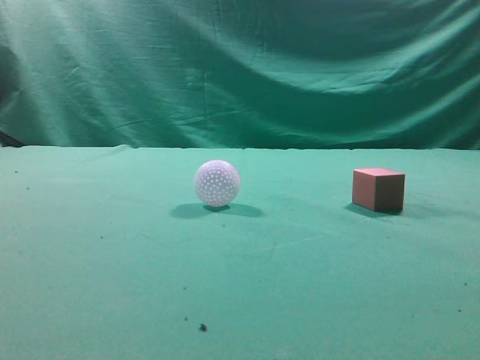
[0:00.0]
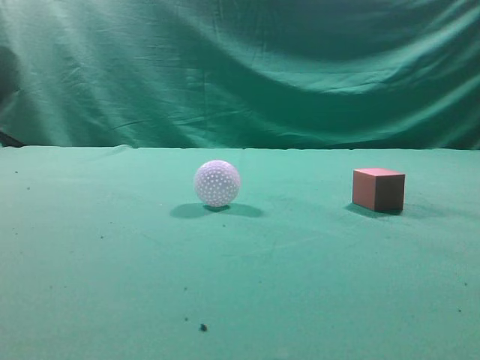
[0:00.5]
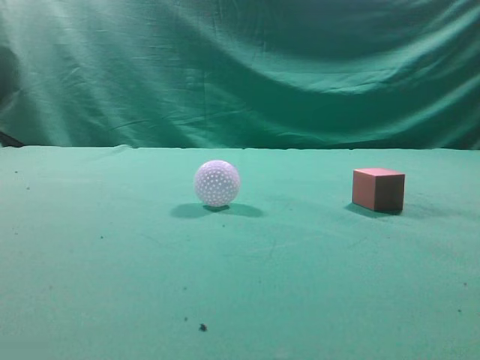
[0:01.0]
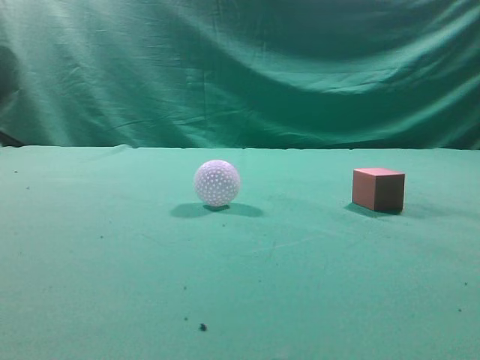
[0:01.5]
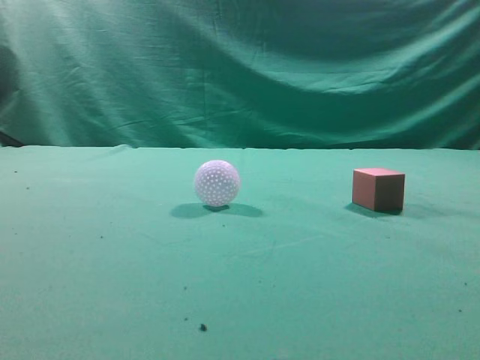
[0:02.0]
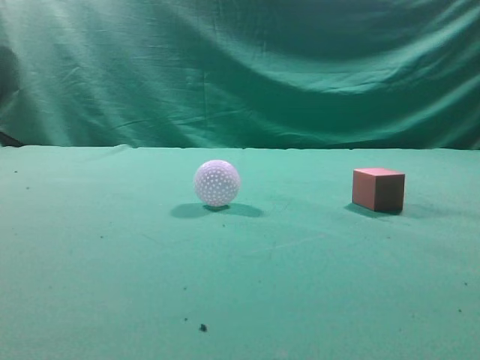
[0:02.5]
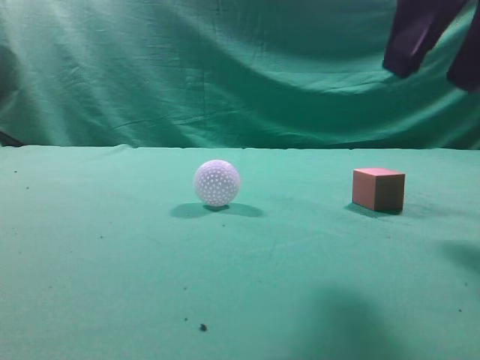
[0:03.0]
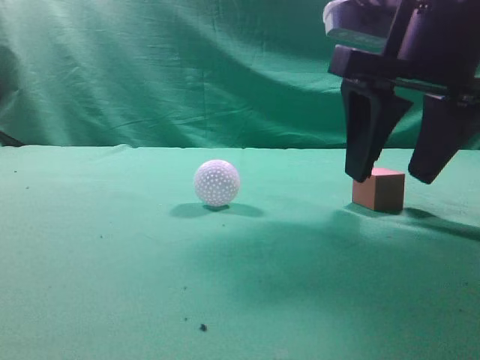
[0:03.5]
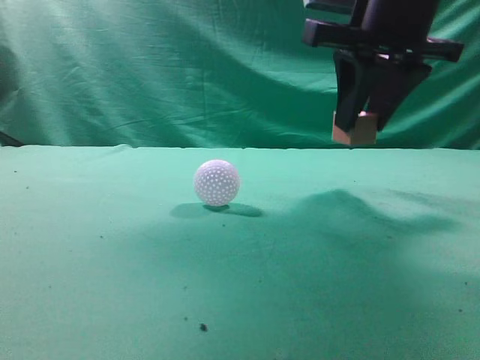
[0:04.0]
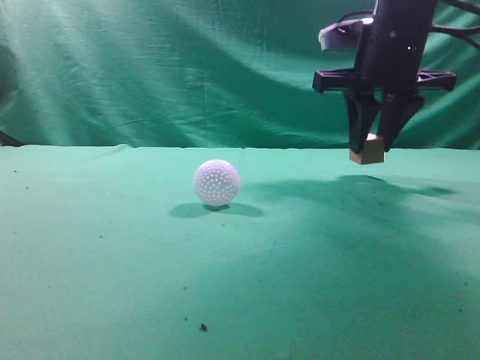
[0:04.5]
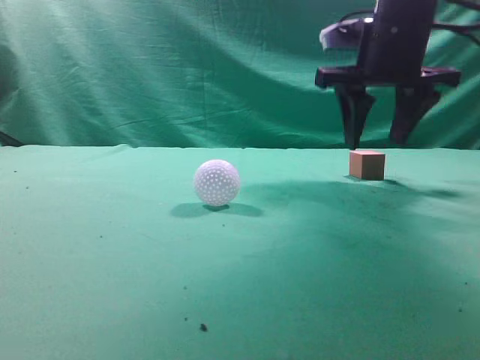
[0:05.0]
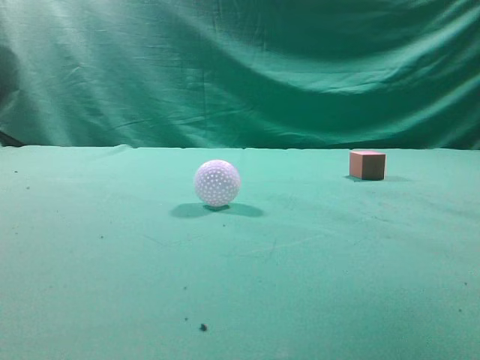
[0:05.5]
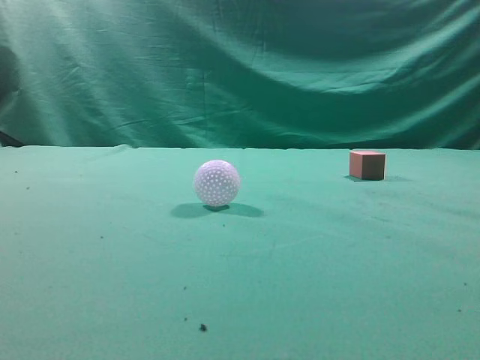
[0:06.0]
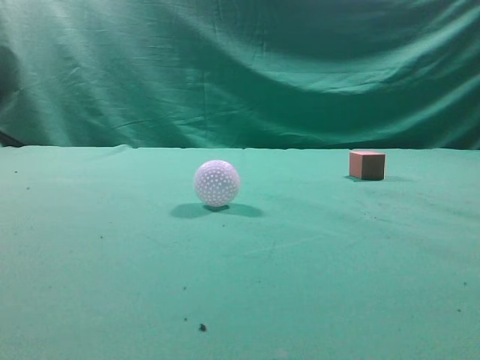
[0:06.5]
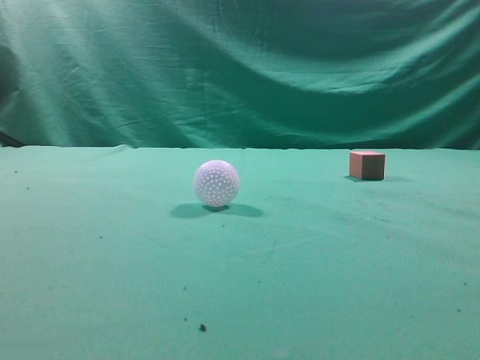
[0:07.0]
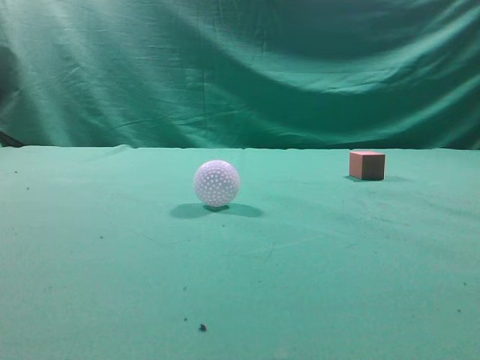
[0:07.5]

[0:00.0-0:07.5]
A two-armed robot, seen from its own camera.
Task of the whole recording: pick up the cube block and place it in another position on the table.
Step, 0:00.0 to 0:03.5: Pick up the small cube.
Step, 0:04.0 to 0:04.5: Place the small cube on the ahead of the table.
0:02.0 to 0:04.0: The right gripper shifts roughly 30 cm forward and to the left, and opens its fingers.
0:04.0 to 0:05.5: The right gripper heads upward, covering approximately 15 cm, and closes its fingers.
